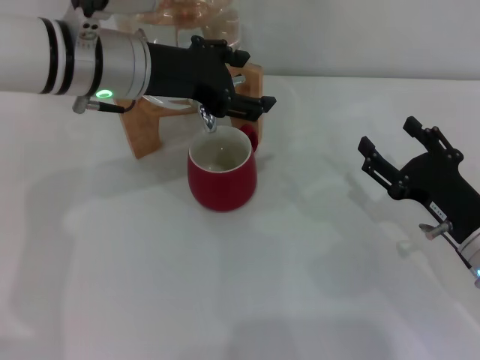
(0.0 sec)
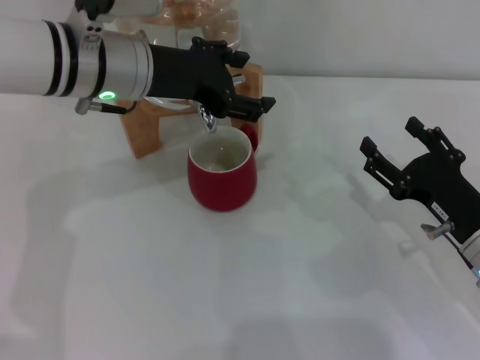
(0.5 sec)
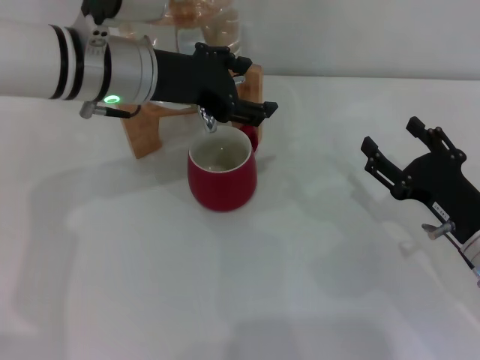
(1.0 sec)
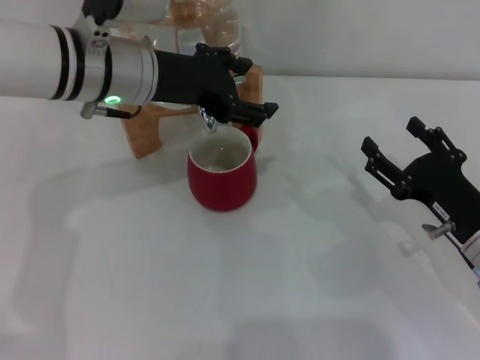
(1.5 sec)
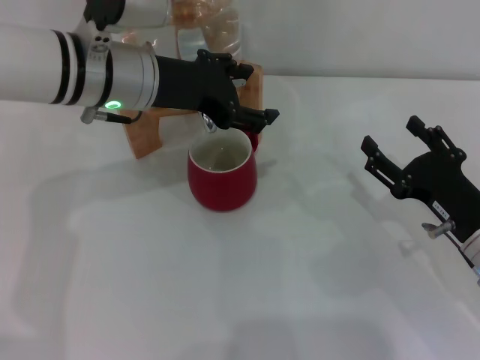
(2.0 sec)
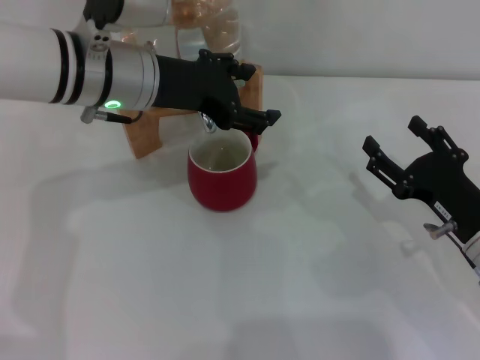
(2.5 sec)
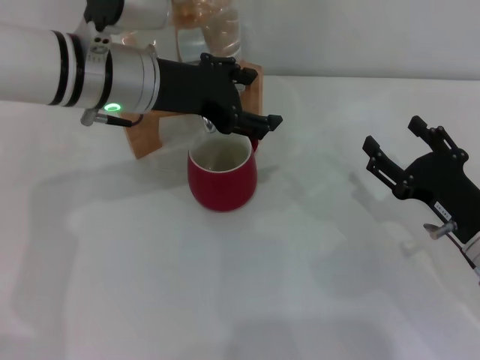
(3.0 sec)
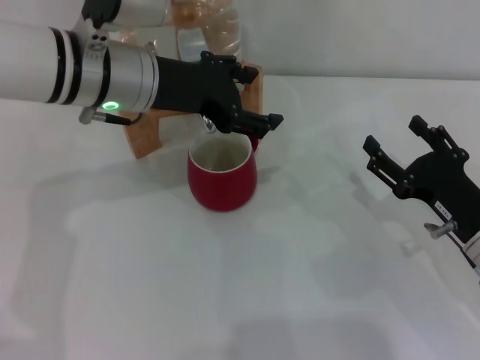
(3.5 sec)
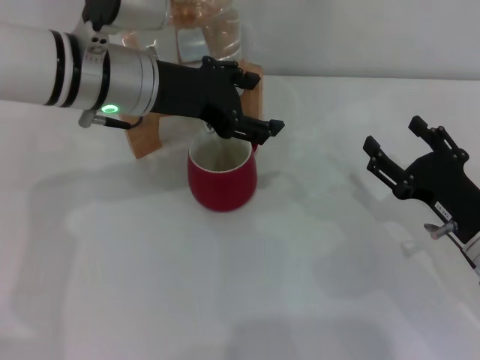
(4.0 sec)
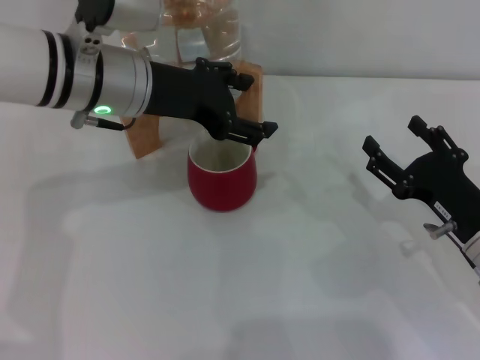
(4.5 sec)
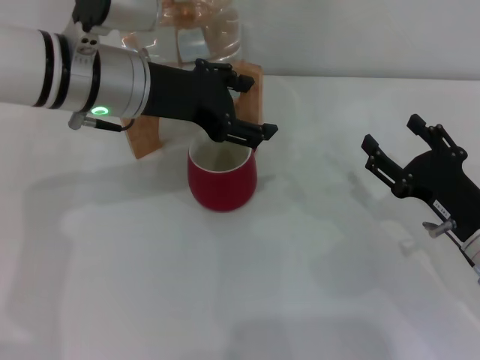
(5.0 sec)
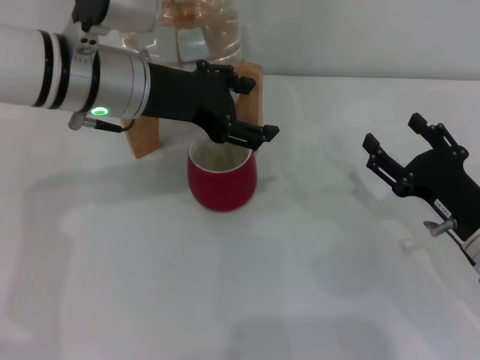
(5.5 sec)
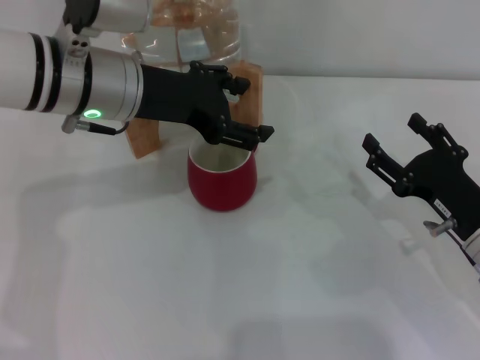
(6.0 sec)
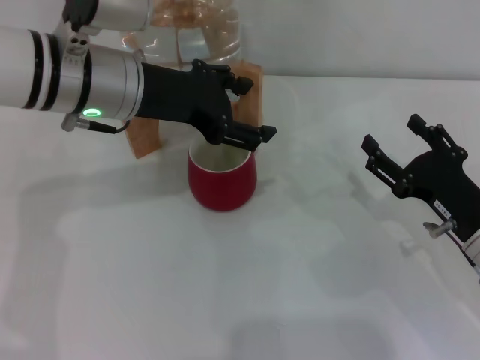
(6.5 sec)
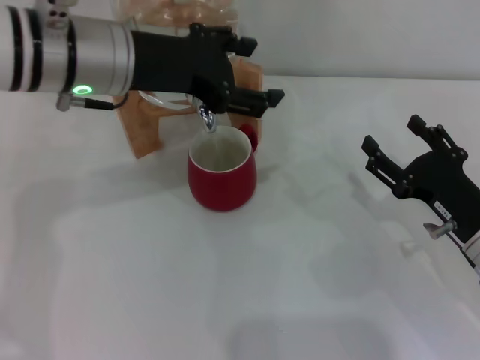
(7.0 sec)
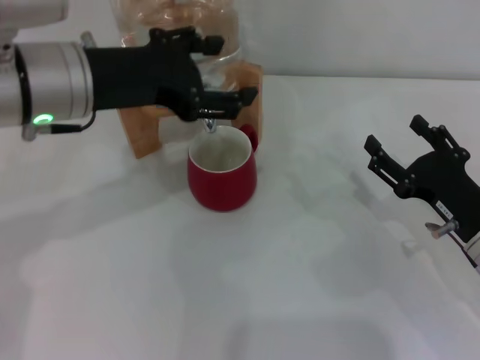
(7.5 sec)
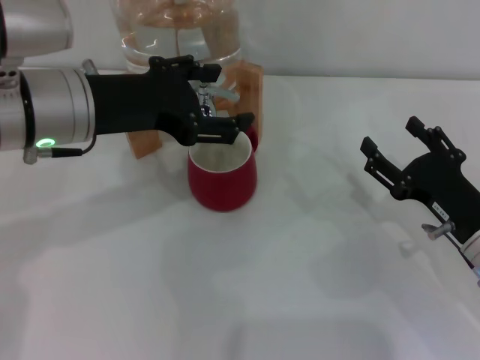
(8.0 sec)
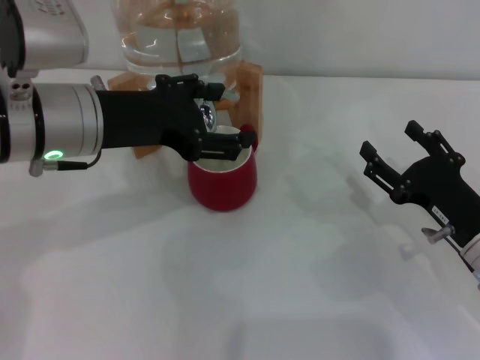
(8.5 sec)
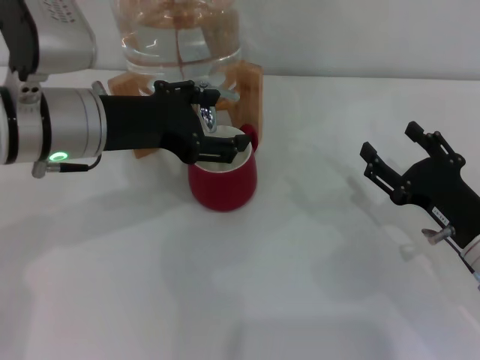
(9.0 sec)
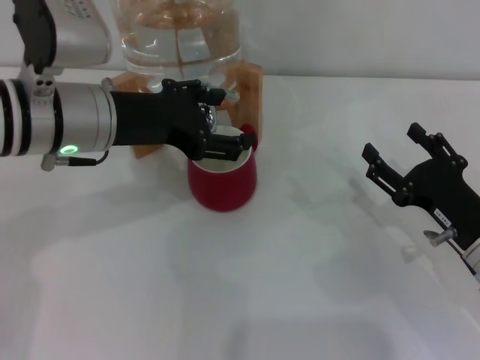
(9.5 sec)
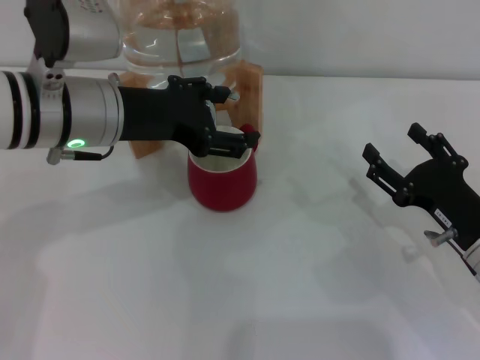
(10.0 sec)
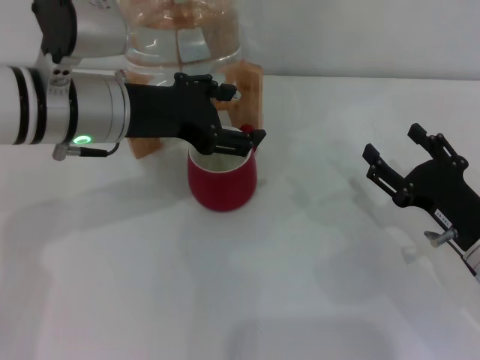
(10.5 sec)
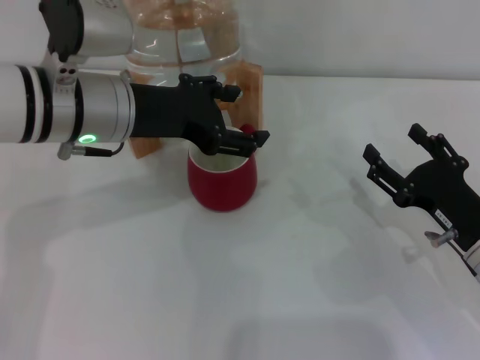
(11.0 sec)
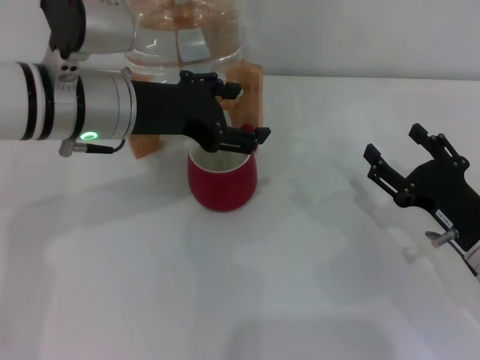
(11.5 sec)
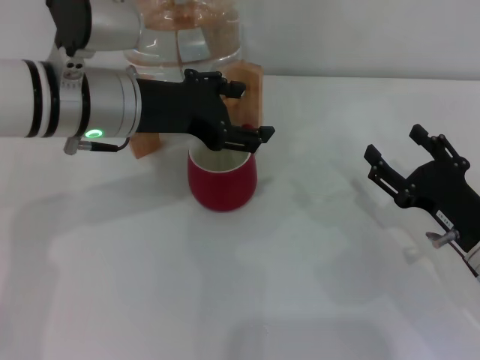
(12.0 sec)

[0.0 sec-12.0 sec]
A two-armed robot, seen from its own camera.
Task of the whole recording: the right gripper pick up the red cup and place it horizontally under the faucet, the left gripper turn on the faucet to fill the cup, and then turn off the faucet.
Step, 0.0 sec to 6.5 sec: Open the dispenser valve and fill the cup with water with the left gripper.
0.0 sec to 4.0 sec: Both grippers stay put.
4.0 sec to 6.0 sec: The grippers move only a little.
6.0 sec to 8.0 sec: The left gripper ends up about 5 cm from where it was.
8.0 sec to 12.0 sec: The grippers stay close to where they were, moving slightly.

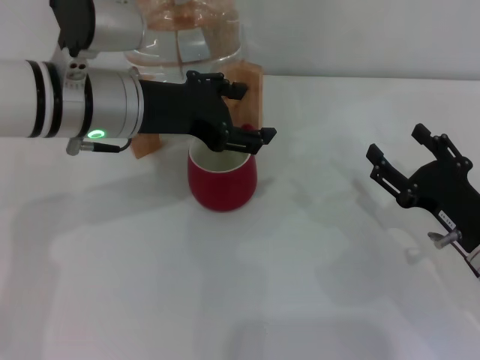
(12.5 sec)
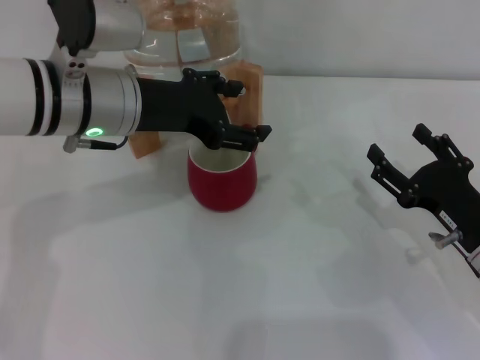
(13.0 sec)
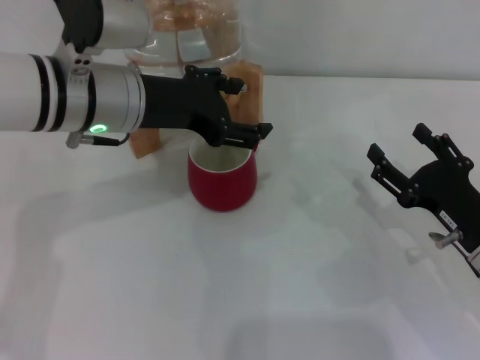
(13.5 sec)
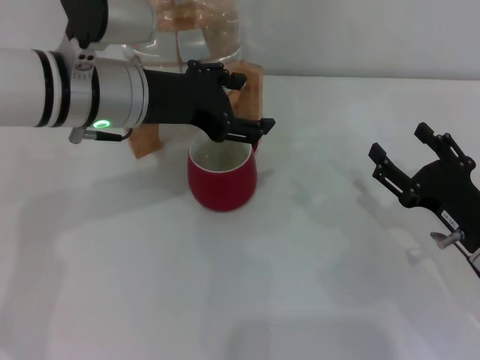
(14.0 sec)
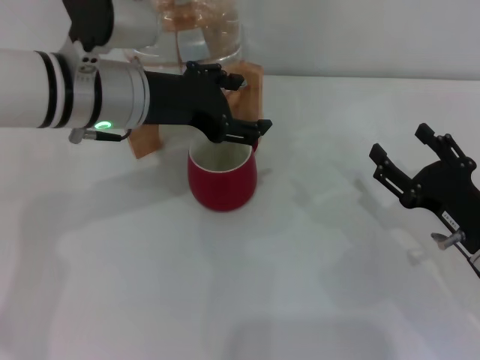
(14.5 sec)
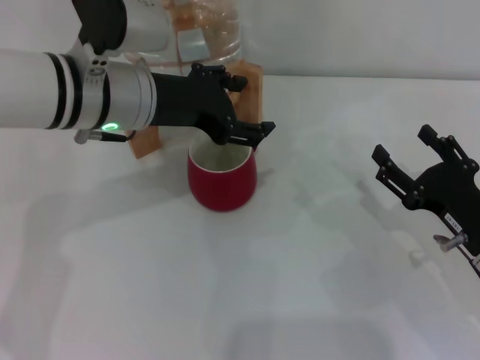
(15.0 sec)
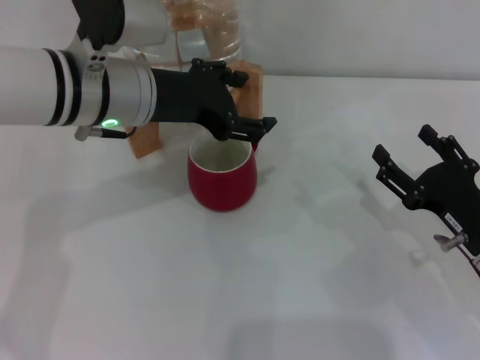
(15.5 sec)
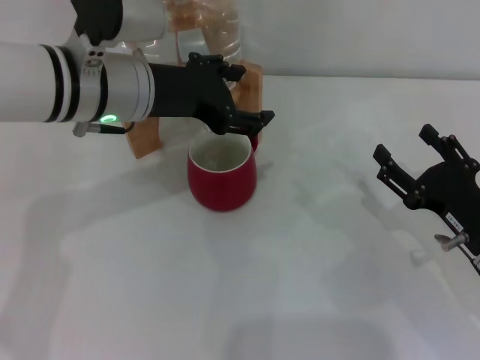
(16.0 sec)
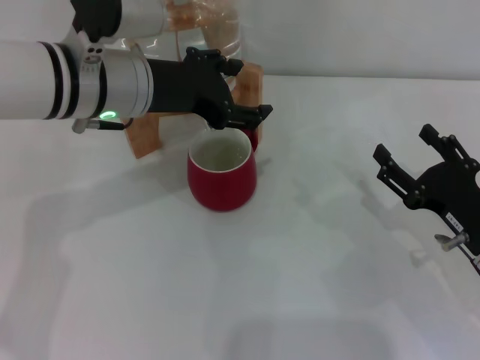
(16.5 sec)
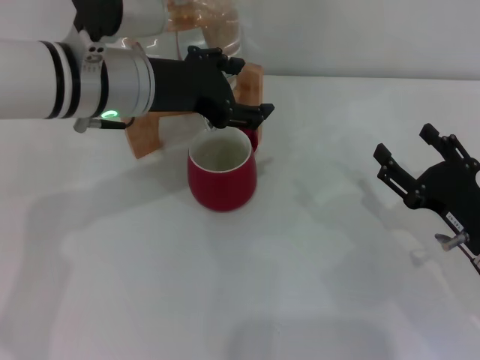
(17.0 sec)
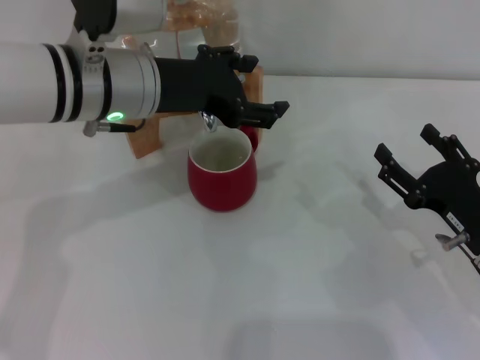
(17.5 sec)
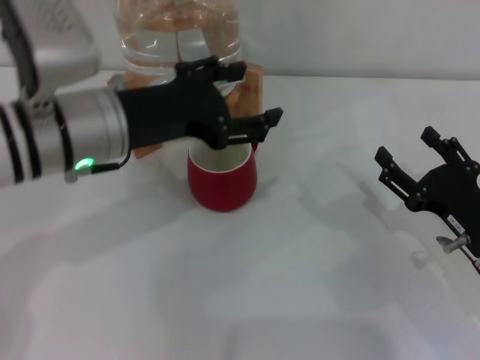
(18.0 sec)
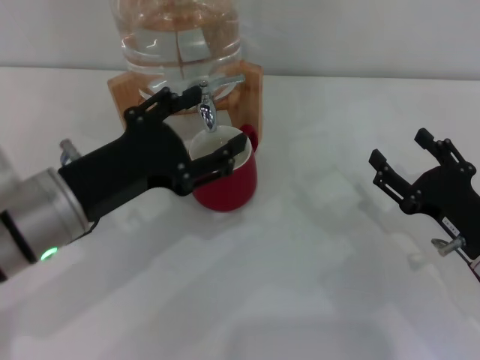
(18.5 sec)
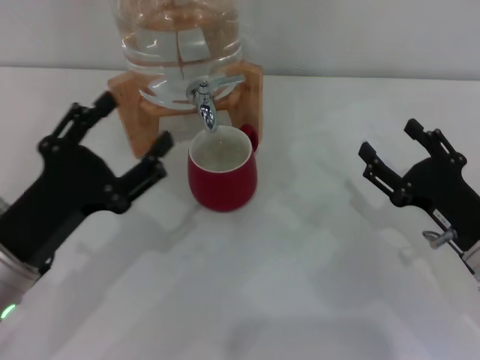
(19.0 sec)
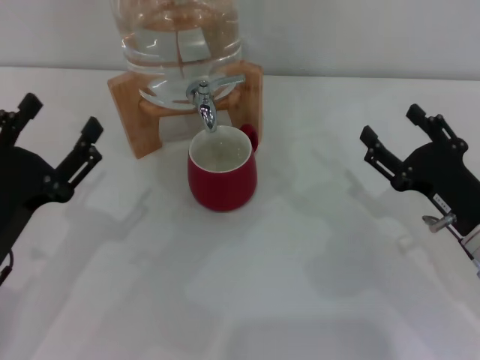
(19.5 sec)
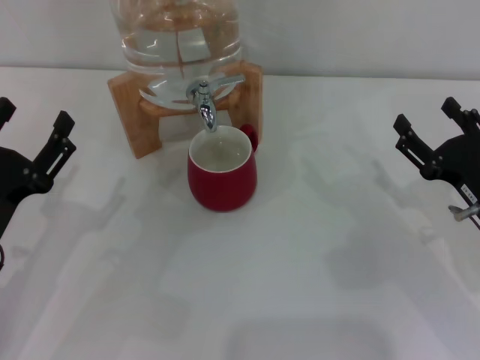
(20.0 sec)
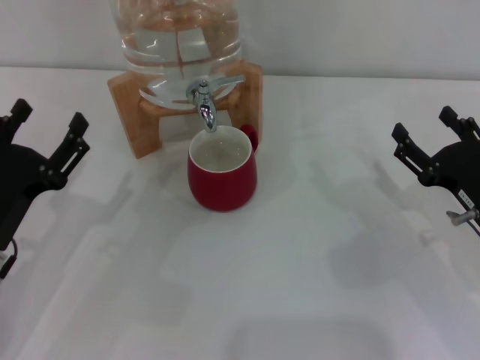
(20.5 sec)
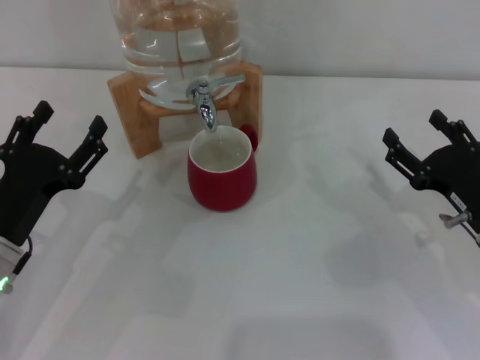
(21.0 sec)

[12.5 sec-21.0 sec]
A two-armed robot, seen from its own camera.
Task of the whole recording: the right gripper pick up the red cup and place it horizontally under the faucet, the left gripper turn on the faucet to fill the cup, and then turn off the faucet.
Step, 12.5 sec to 17.5 sec: Open the dispenser valve and fill the cup with water with the right gripper.
12.5 sec to 14.5 sec: The two grippers keep their place.
14.5 sec to 16.5 sec: Both grippers stay about where they are.
16.5 sec to 19.0 sec: The left gripper travels backward, downward and to the left by some 20 cm.
19.0 sec to 21.0 sec: The left gripper shifts some 5 cm downward.
